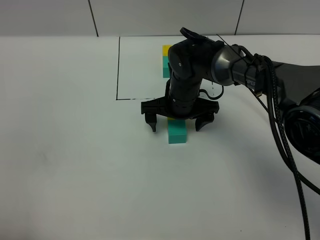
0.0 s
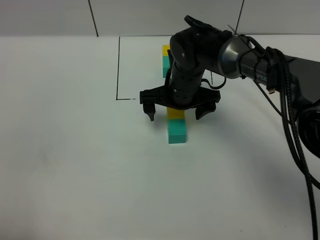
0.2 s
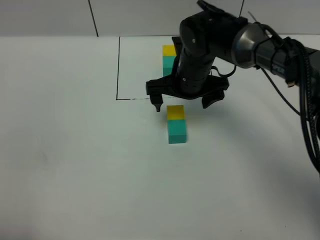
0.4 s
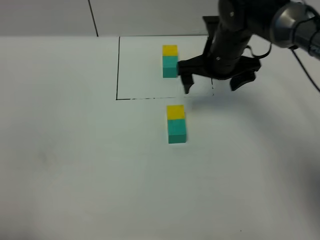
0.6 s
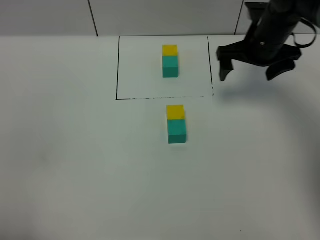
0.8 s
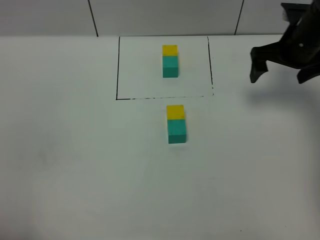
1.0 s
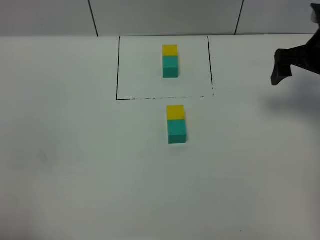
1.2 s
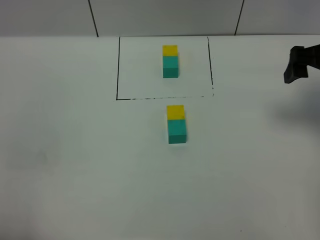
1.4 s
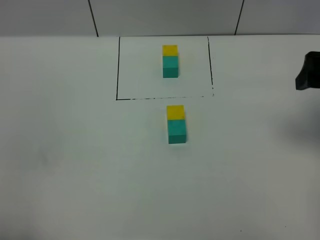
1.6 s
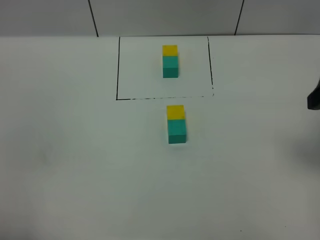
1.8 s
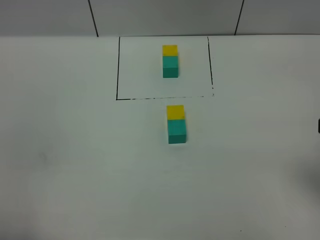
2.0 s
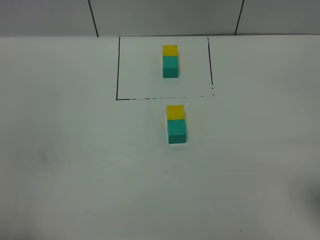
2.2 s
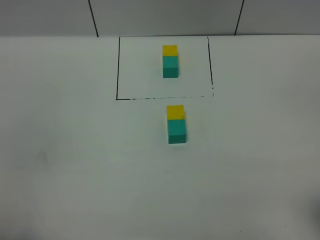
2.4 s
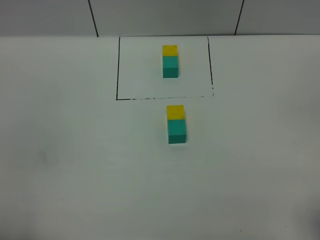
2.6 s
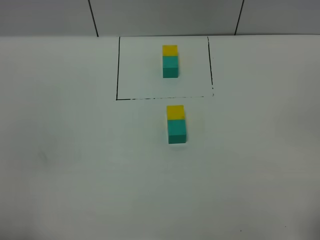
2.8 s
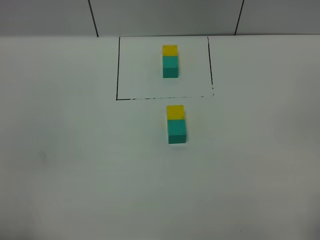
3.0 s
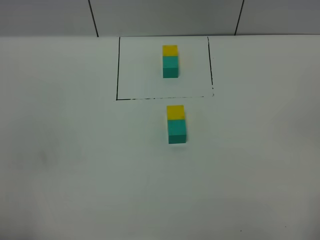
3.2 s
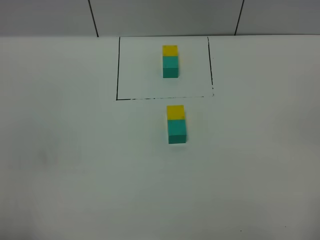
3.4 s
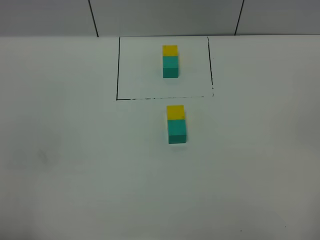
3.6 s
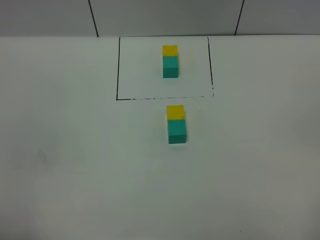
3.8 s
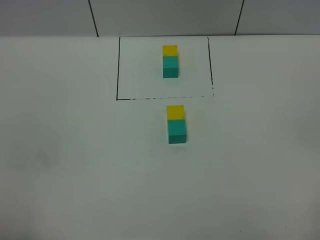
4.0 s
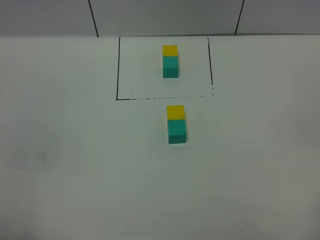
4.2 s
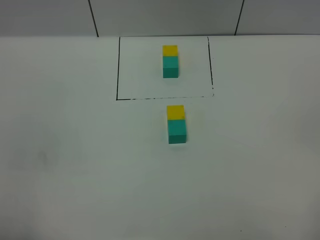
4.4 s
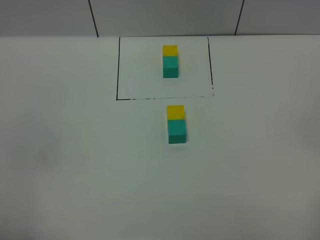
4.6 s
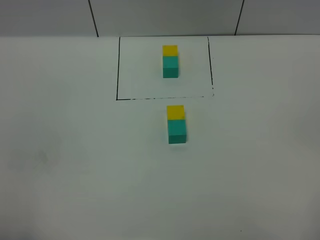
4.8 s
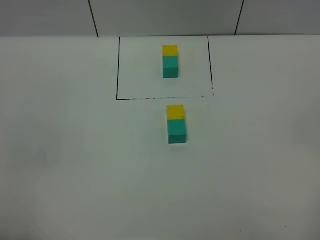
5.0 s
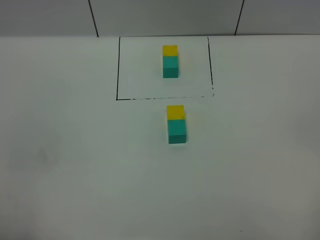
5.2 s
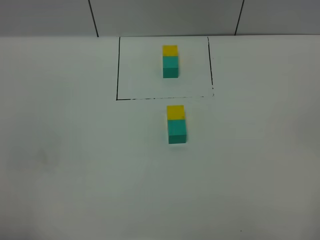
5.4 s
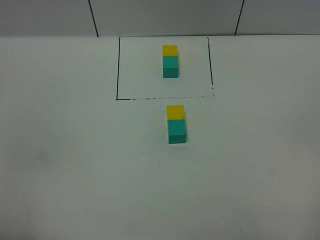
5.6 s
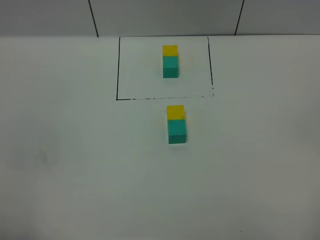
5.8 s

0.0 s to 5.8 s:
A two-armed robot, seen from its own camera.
Task of the whole recording: According to the building block template in front, assemble the scattered blocks together.
0.0 to 1.4 s: The right gripper travels to the right and upward by about 30 cm.
1.4 to 2.8 s: The right gripper moves backward, some 30 cm.
4.4 to 5.8 s: The two grippers keep their place.
